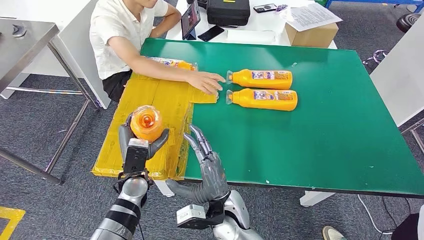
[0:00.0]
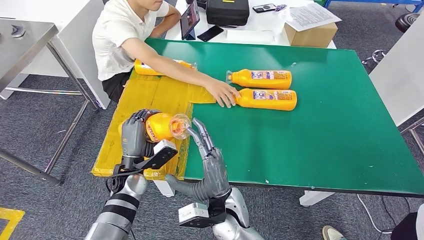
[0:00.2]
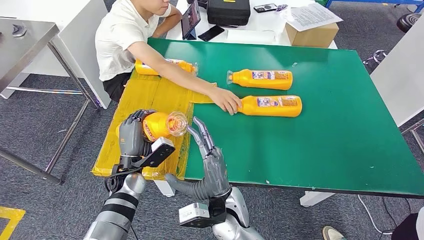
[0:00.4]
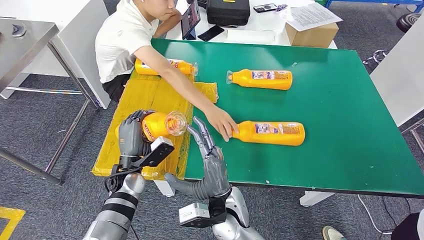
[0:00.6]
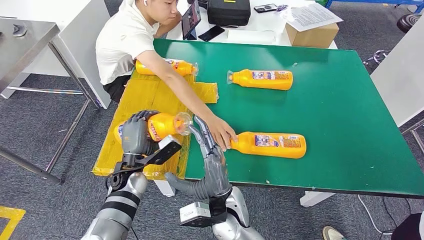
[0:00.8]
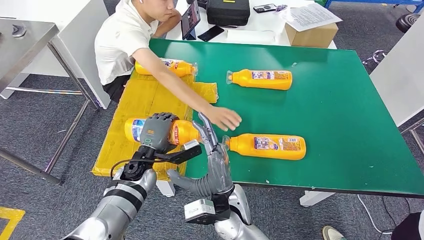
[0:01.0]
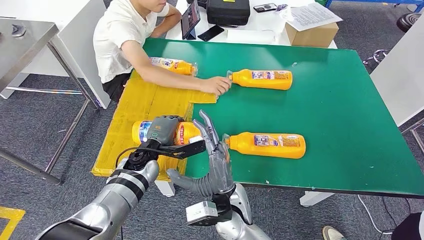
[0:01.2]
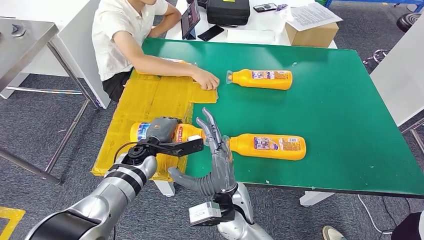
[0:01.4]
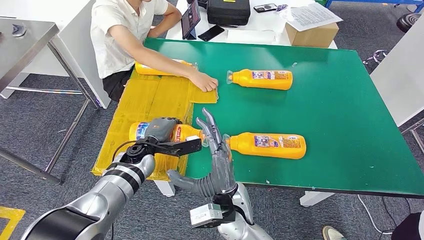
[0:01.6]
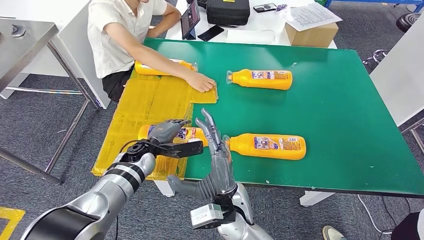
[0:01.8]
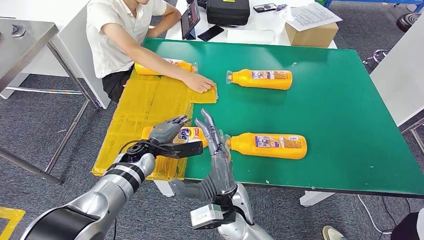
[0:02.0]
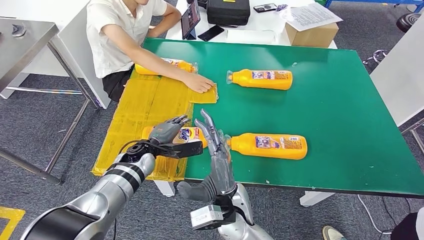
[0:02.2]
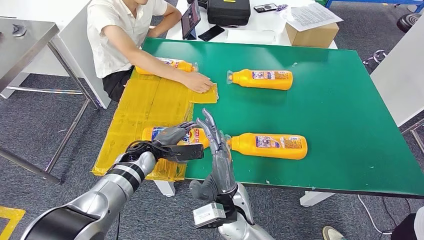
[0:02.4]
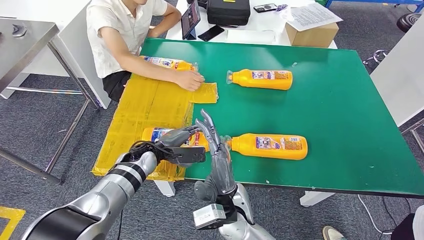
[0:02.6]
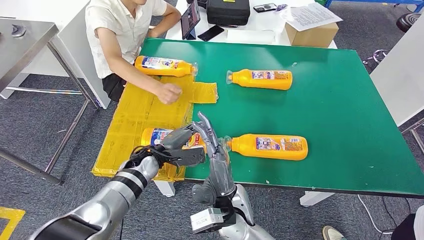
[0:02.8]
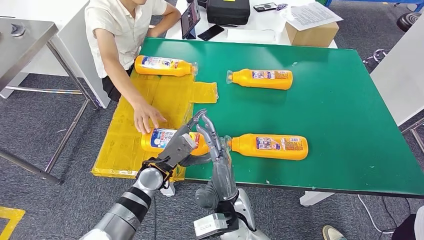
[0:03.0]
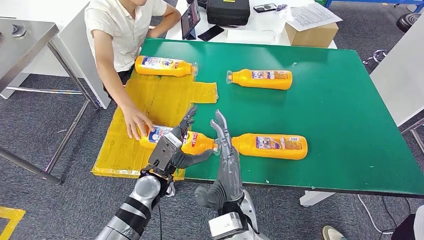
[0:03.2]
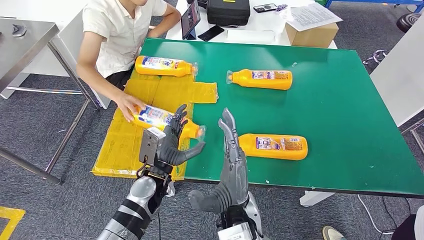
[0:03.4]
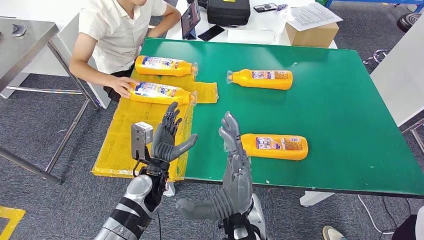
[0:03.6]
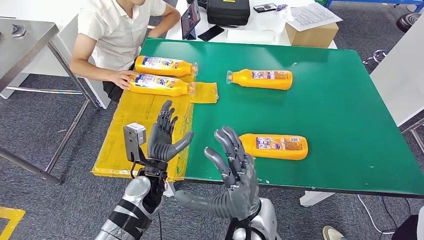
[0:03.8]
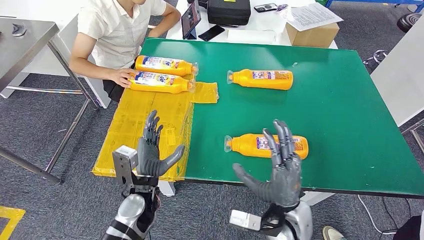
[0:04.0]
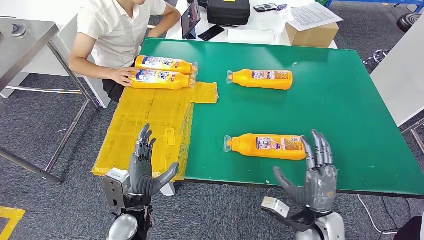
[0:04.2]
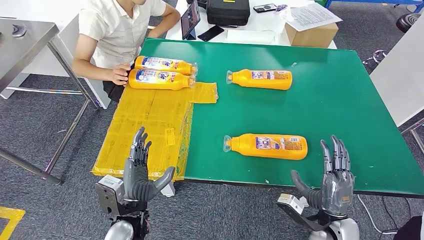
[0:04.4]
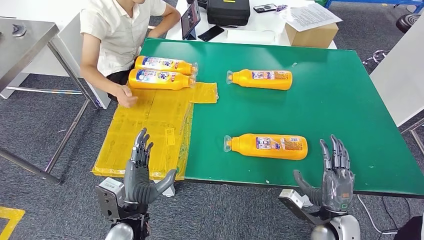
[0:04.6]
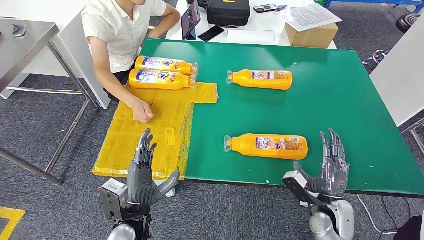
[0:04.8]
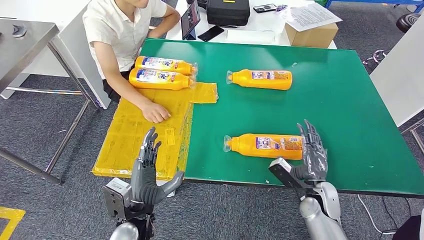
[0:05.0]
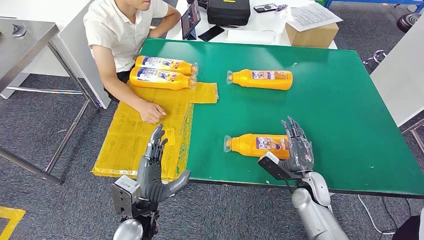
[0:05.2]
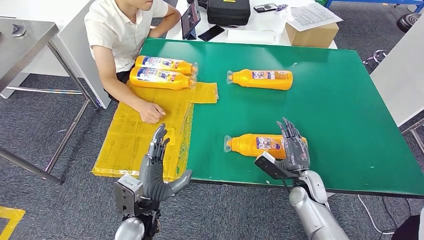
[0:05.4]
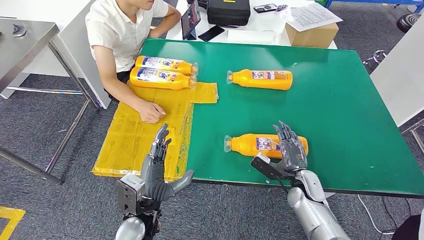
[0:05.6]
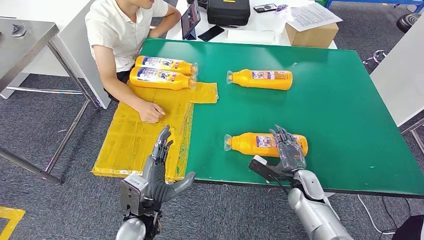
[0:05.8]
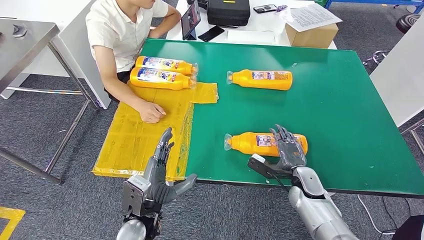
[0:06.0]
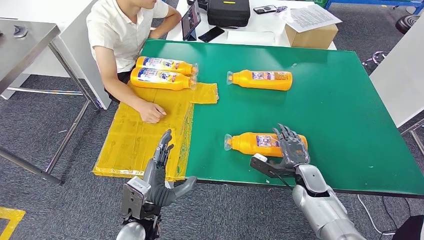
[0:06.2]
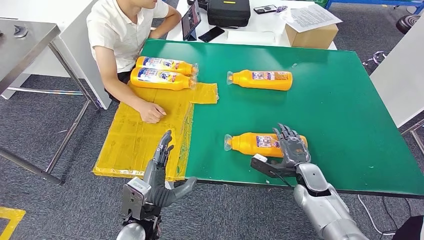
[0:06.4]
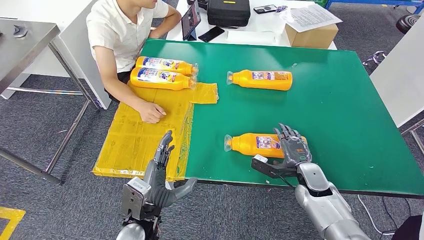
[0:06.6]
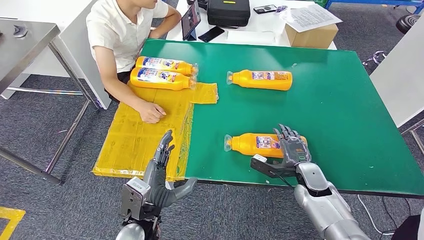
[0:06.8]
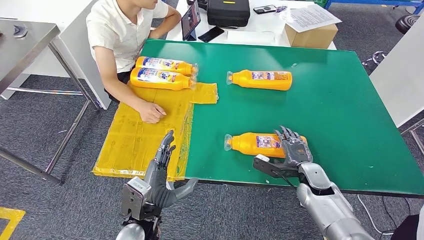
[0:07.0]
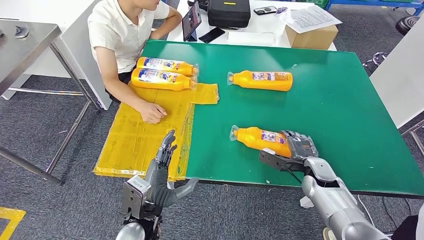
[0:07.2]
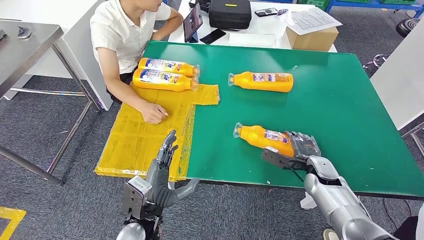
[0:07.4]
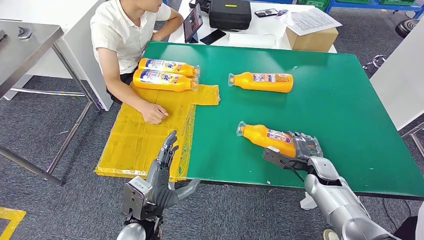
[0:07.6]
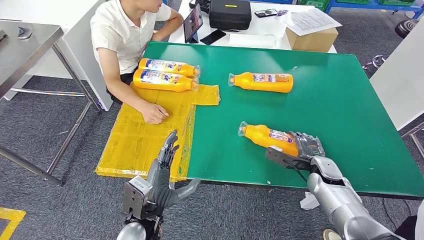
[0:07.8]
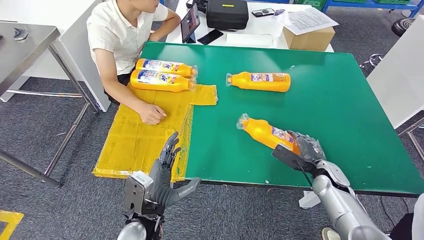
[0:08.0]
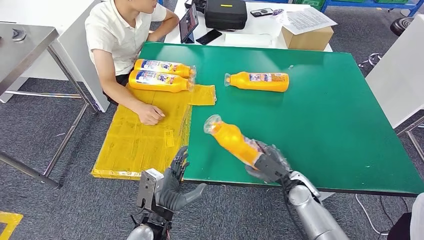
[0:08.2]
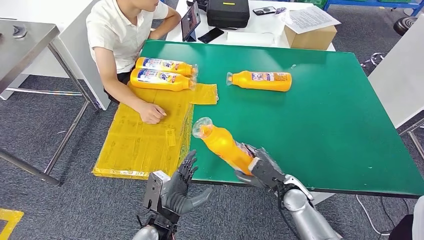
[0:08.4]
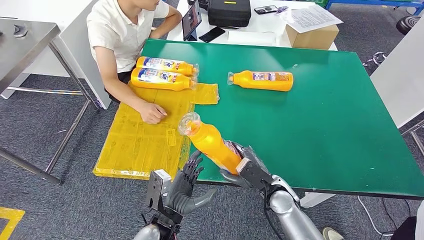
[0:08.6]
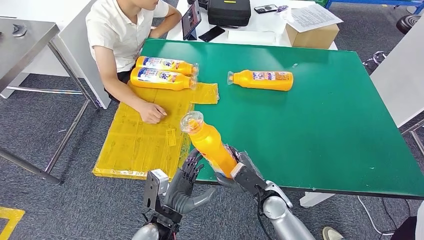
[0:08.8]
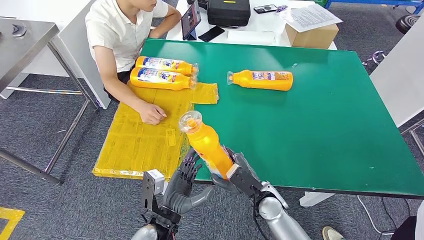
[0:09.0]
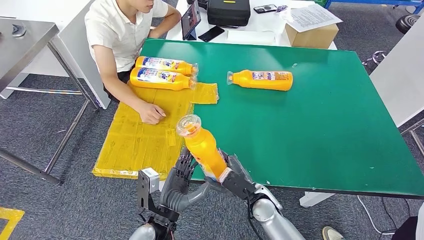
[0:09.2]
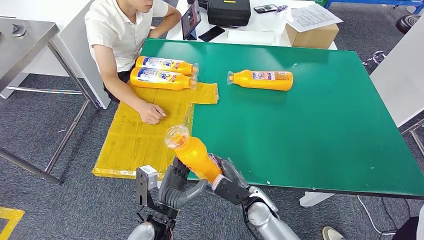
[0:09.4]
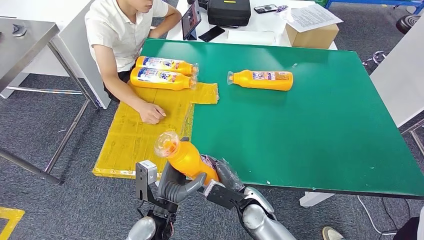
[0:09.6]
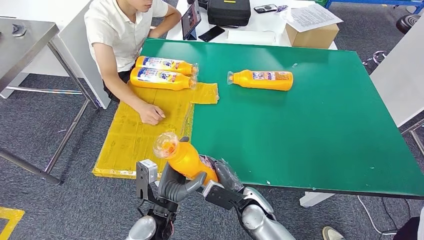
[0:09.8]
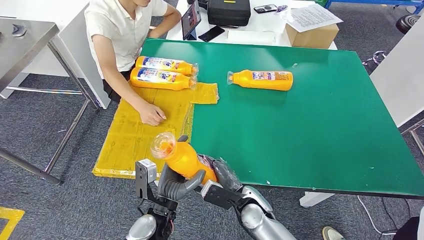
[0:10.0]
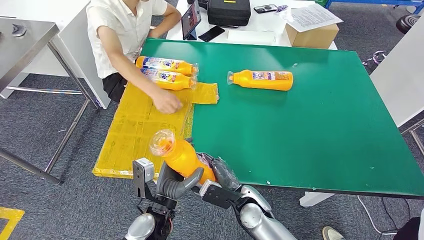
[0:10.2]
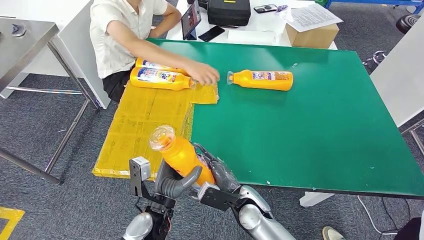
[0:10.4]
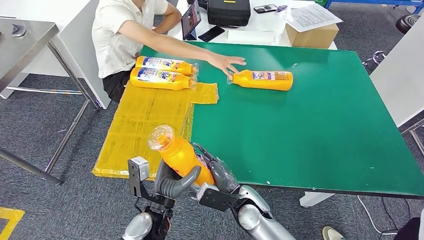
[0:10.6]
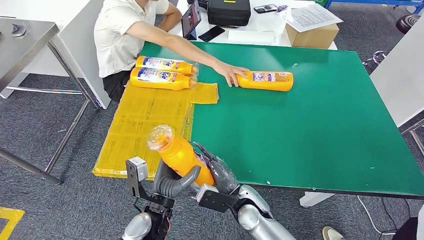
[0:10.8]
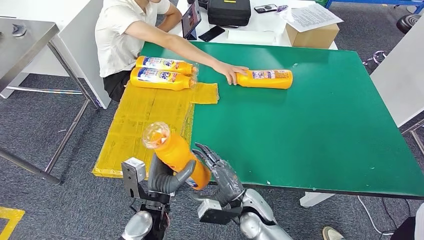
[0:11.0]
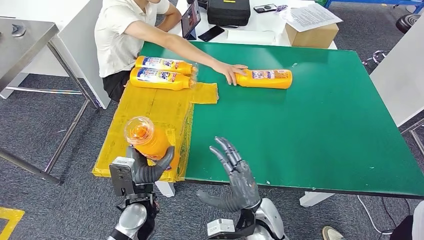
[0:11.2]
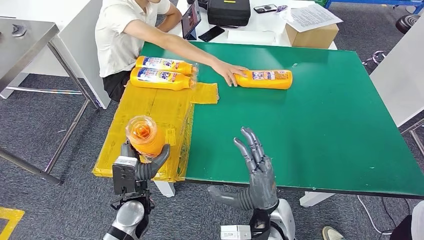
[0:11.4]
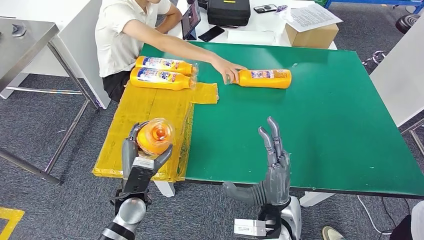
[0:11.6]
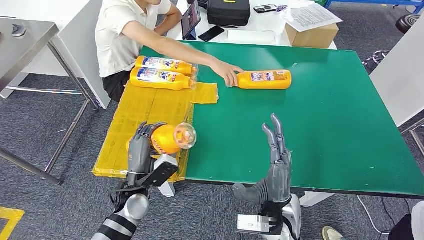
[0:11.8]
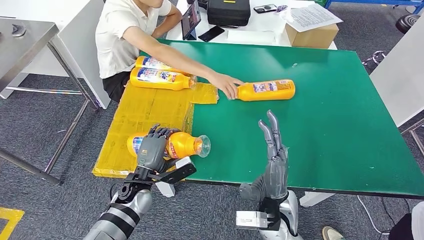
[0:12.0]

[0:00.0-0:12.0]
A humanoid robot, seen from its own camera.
Step, 0:02.0 to 0:07.0: Pick up the fast-moving consumer goods bottle from the table.
0:00.0 to 0:01.6: The left hand is displaced forward by roughly 10 cm.
0:01.6 to 0:03.0: The left hand shifts about 5 cm backward.
0:03.0 to 0:04.4: The right hand is displaced to the right by some 25 cm. Meanwhile the left hand is displaced backward by roughly 10 cm.
0:04.4 to 0:06.0: The right hand is displaced forward by some 10 cm.
0:09.0 to 0:10.4: The right hand shifts about 5 cm to the left.
0:10.4 to 0:12.0: The right hand shifts about 10 cm upward. The left hand goes about 10 cm forward and to the left.

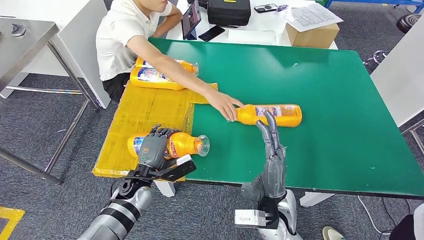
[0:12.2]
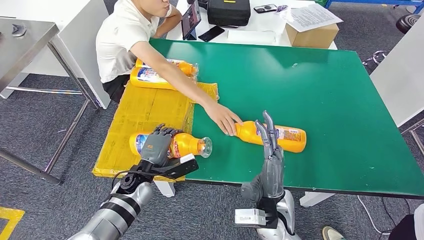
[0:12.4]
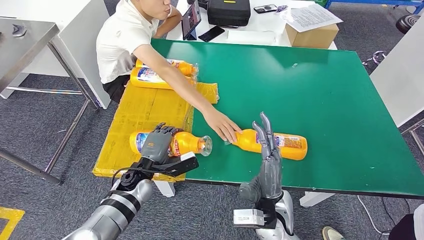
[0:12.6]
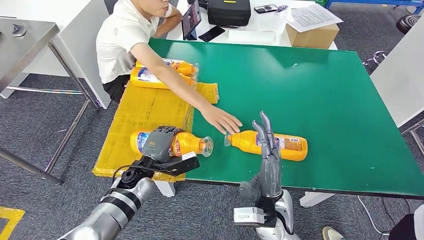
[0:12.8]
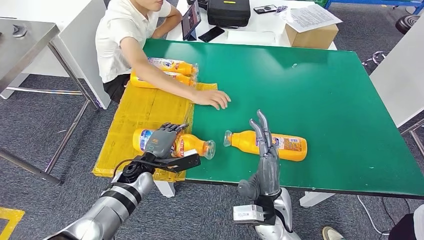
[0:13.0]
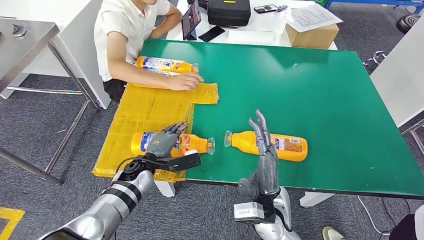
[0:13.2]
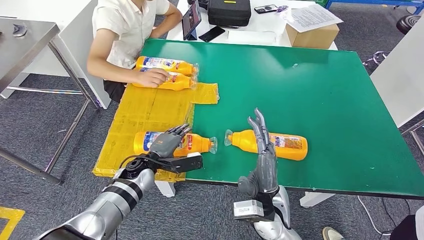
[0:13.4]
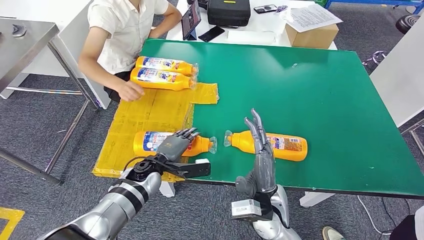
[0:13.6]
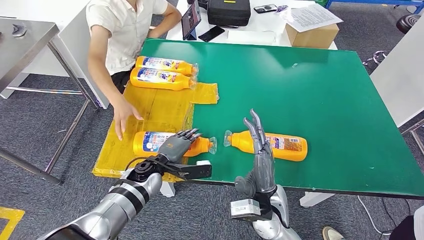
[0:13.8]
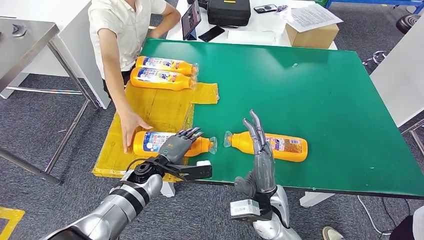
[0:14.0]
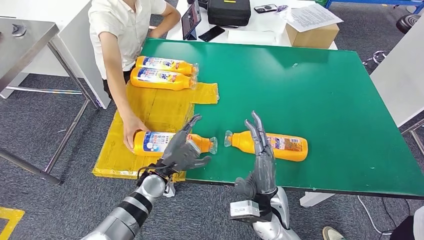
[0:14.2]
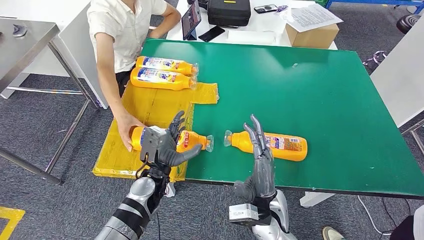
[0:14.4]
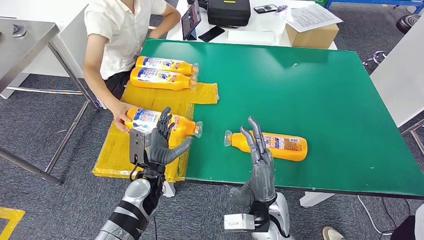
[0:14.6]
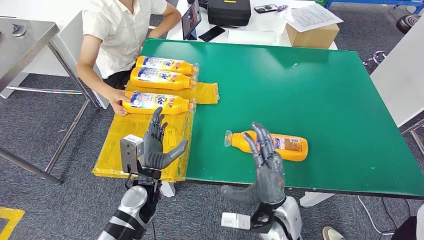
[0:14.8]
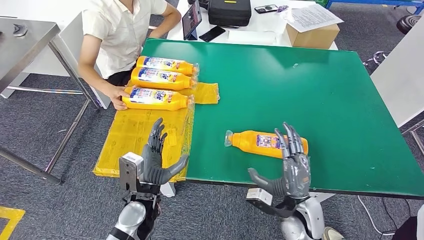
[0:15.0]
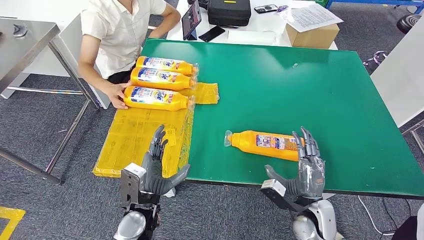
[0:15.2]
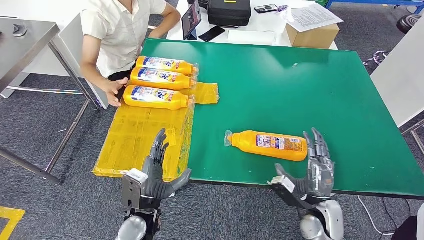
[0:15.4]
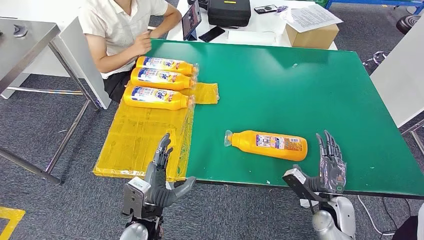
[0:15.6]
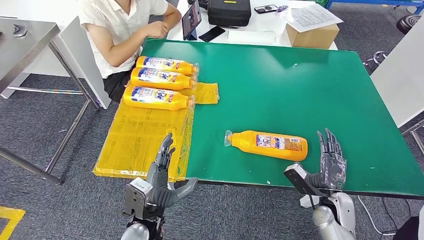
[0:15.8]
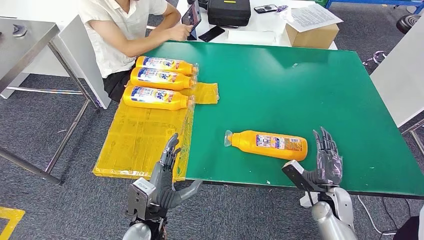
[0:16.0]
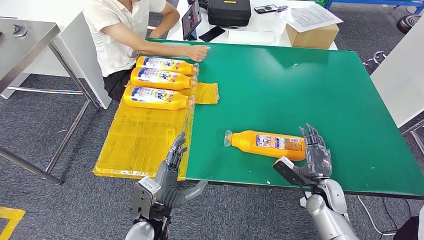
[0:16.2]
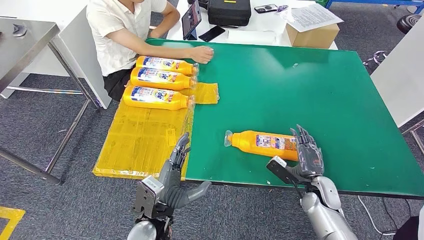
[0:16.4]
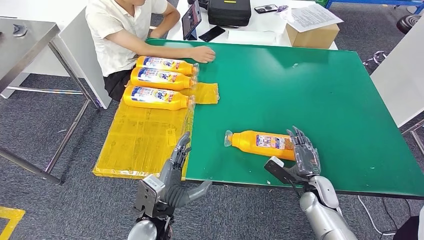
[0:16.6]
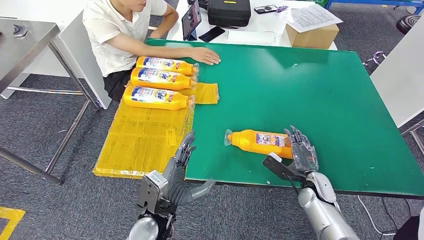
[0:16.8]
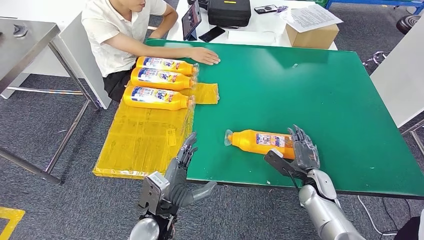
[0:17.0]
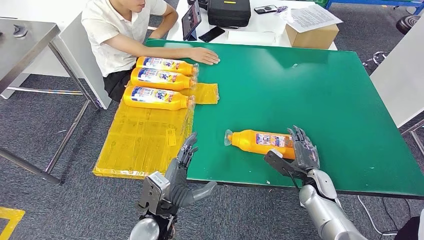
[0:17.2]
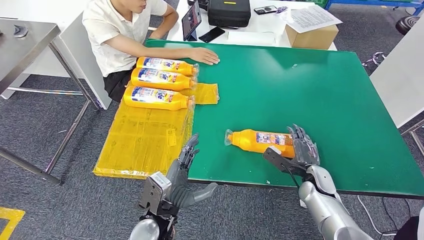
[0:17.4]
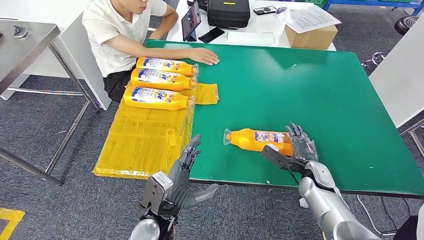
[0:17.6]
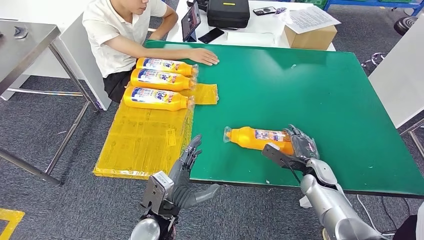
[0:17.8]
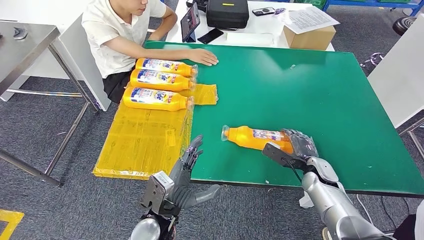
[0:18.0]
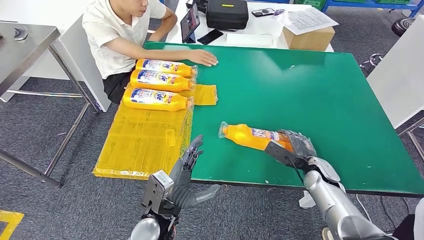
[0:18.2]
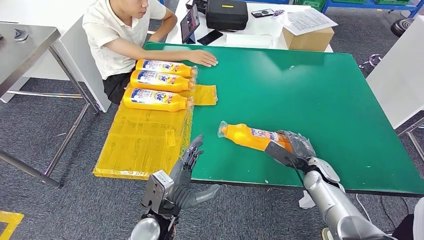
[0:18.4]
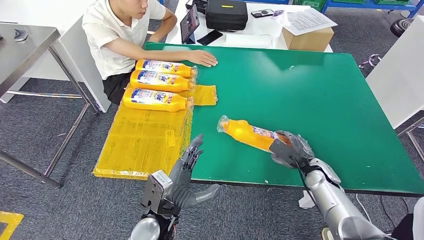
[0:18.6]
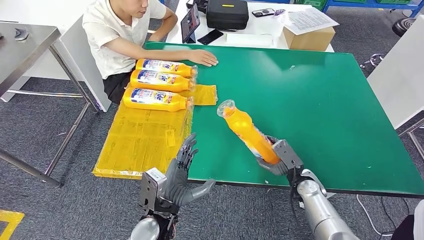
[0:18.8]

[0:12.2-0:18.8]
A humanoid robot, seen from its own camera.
Step, 0:12.4 to 0:18.4: Pick up the fast-moving consumer goods bottle from the table.
0:13.8 to 0:15.4: The left hand is displaced backward by some 15 cm. The right hand shifts about 20 cm to the right and downward.
0:15.4 to 0:17.2: The right hand travels forward by some 10 cm.
